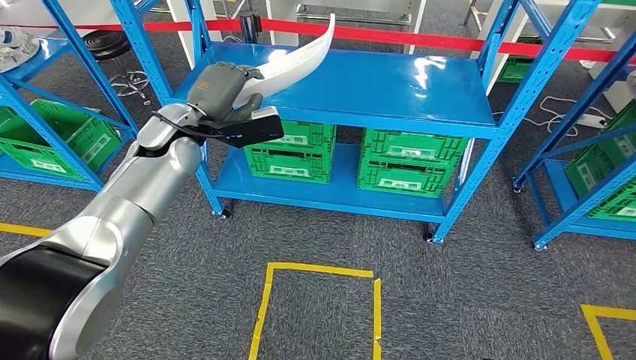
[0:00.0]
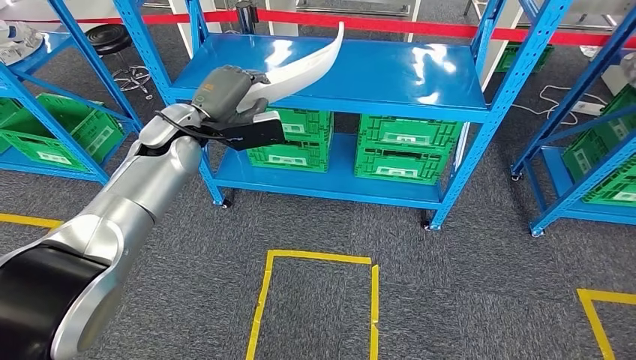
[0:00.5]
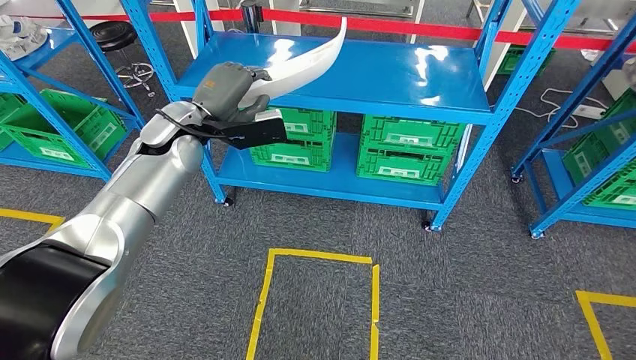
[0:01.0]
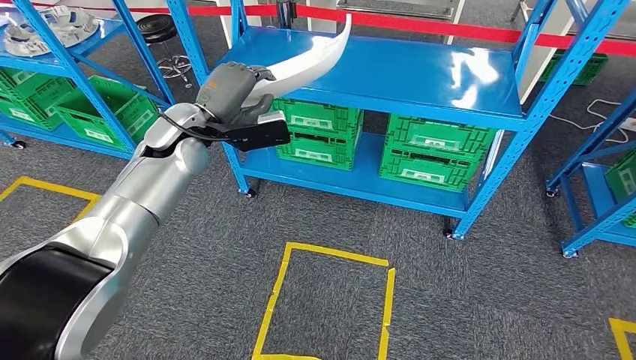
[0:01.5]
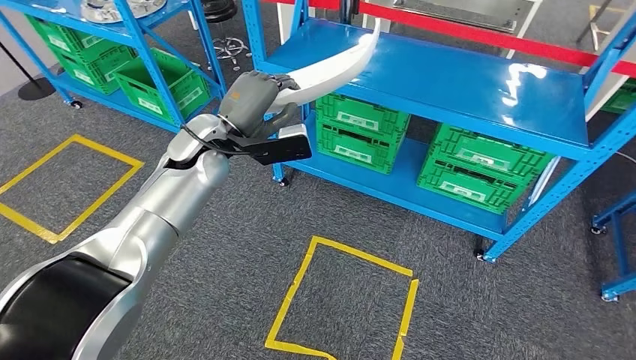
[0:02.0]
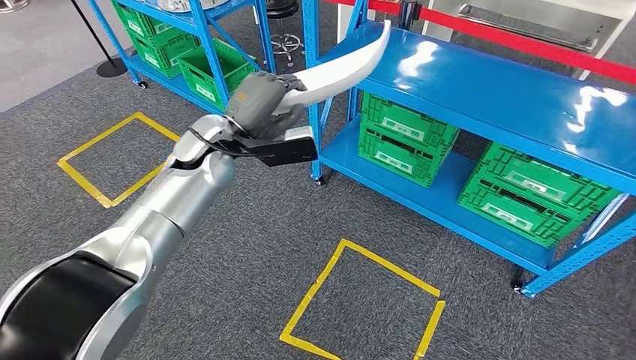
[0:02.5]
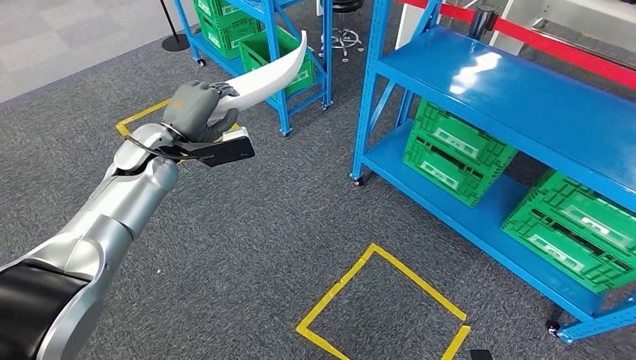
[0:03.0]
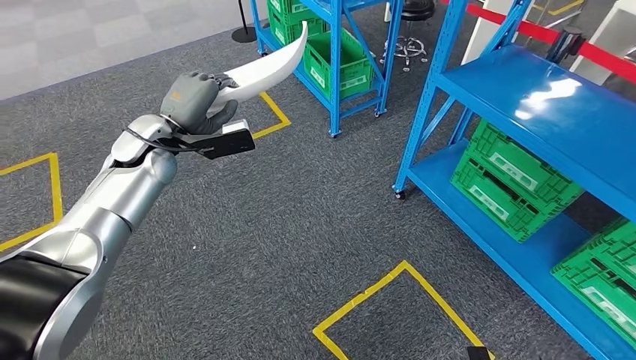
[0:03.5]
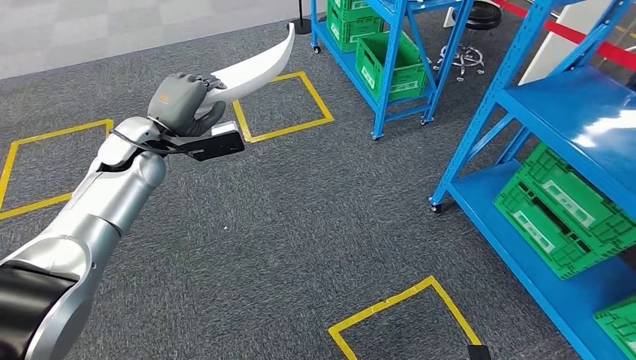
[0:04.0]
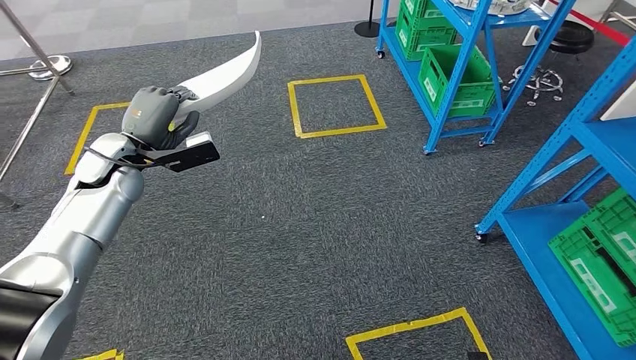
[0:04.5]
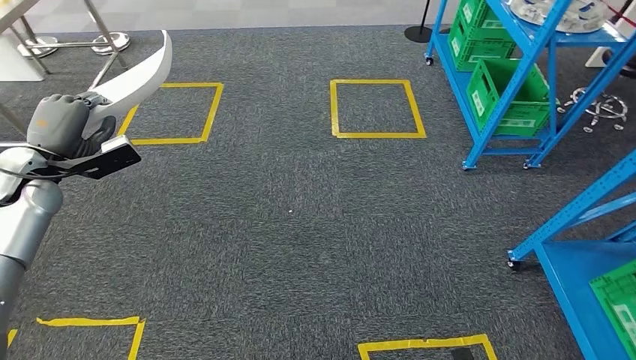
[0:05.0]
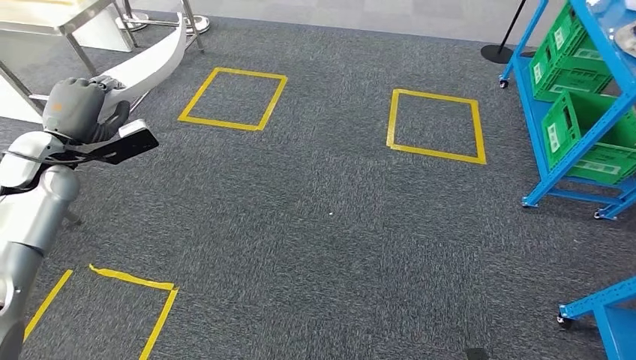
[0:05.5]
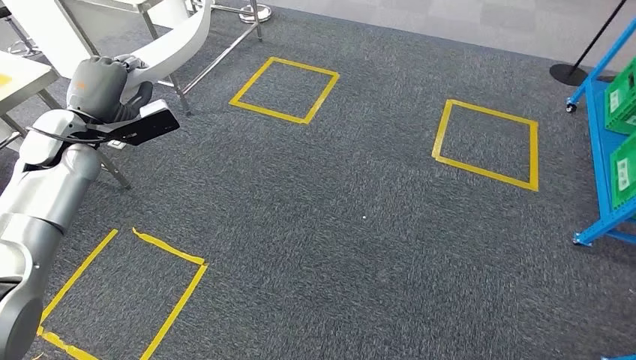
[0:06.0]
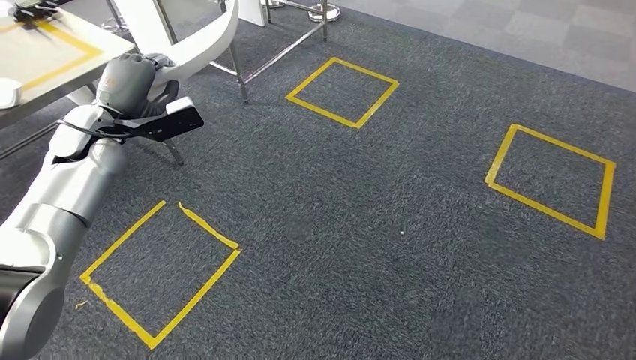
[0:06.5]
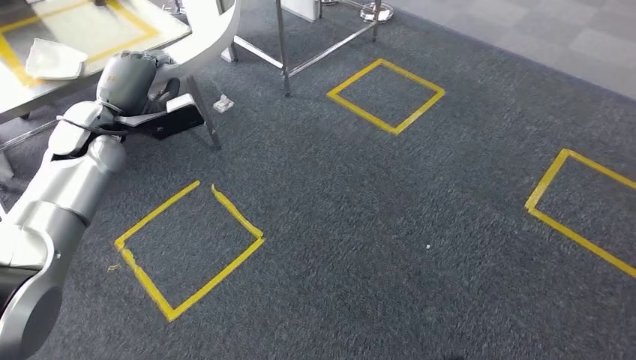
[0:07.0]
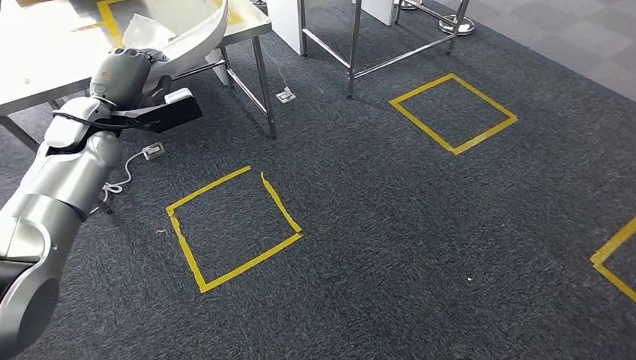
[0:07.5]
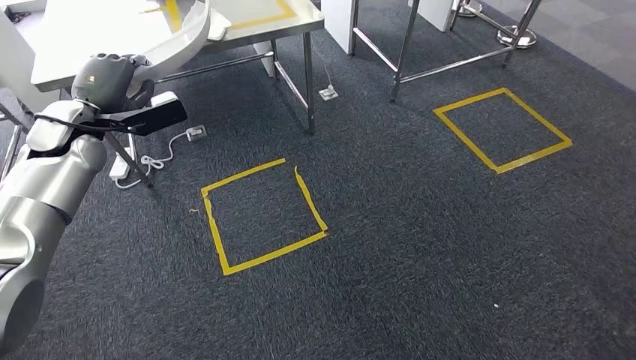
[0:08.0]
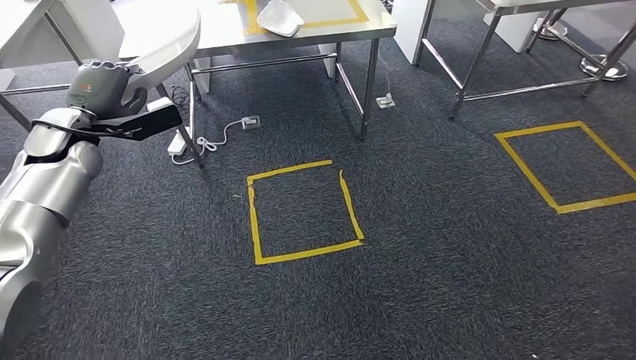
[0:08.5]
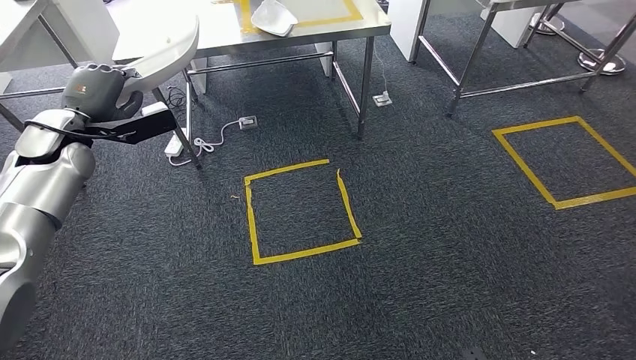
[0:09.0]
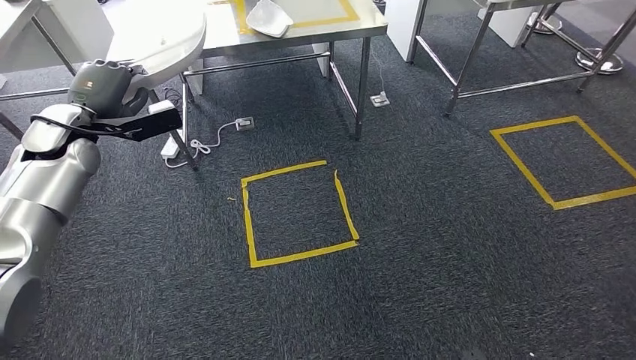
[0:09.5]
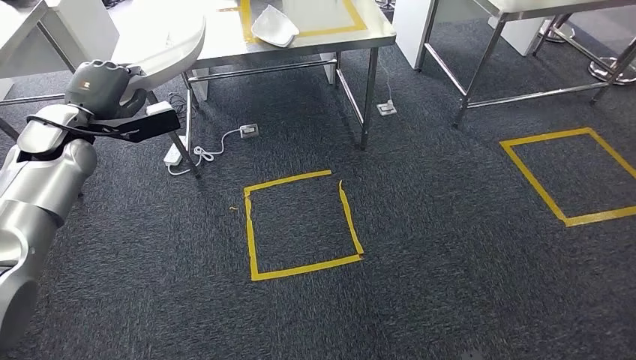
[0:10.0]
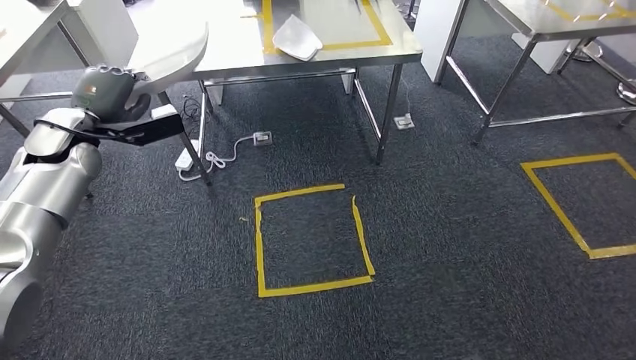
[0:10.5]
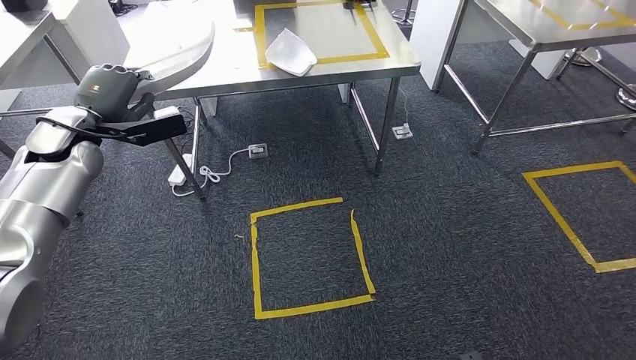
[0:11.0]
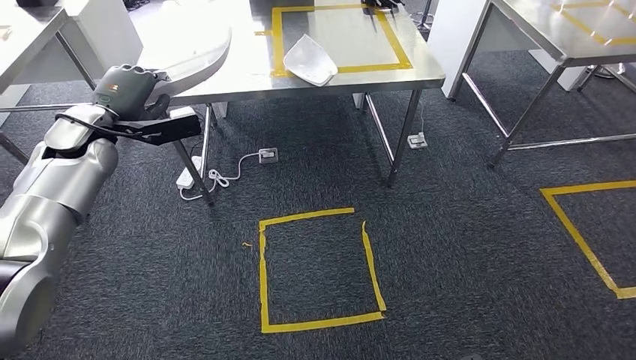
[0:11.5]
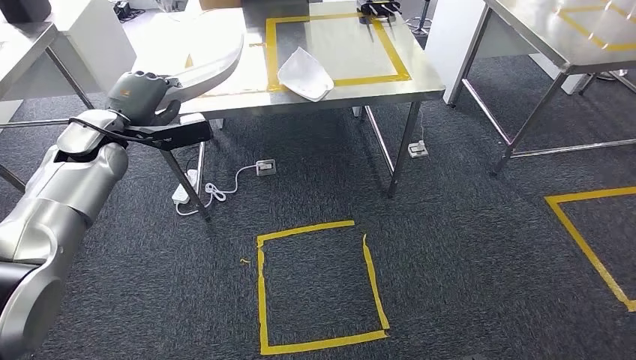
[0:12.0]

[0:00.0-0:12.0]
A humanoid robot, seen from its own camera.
Step, 0:00.0 to 0:09.5: Move the small component to the workbench.

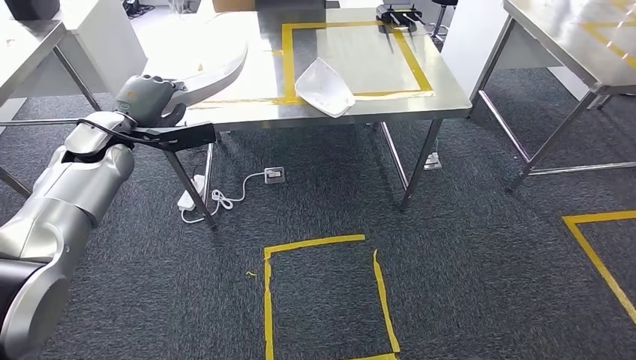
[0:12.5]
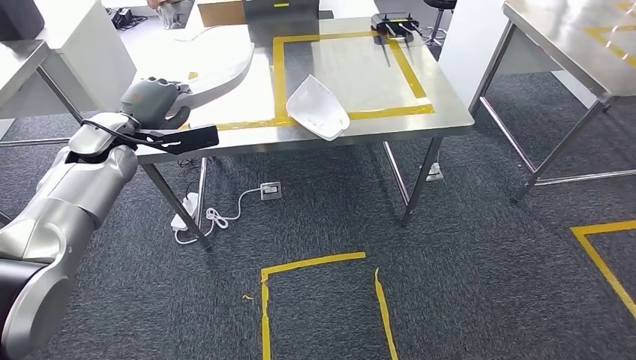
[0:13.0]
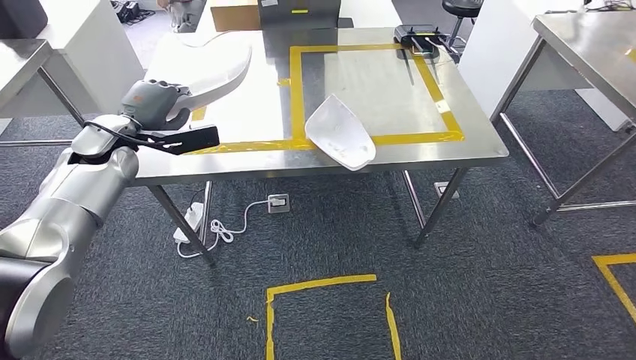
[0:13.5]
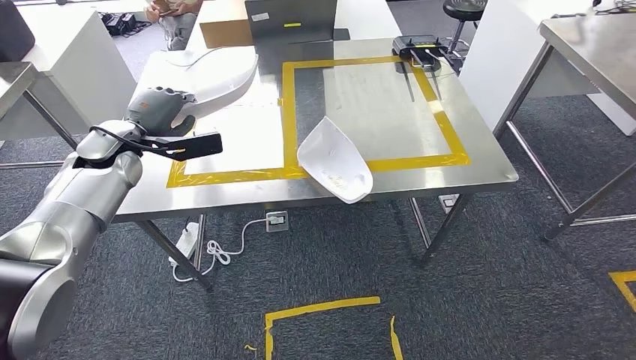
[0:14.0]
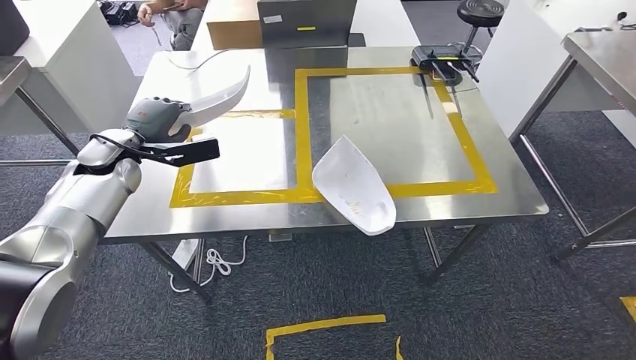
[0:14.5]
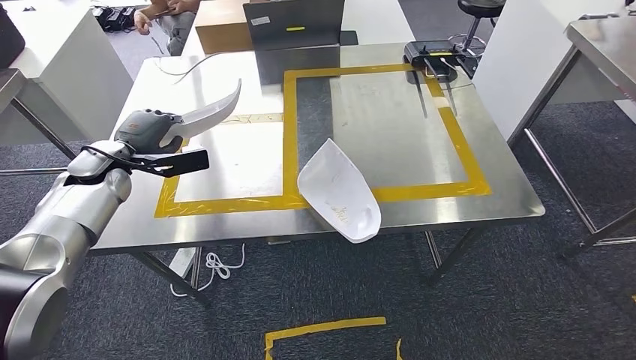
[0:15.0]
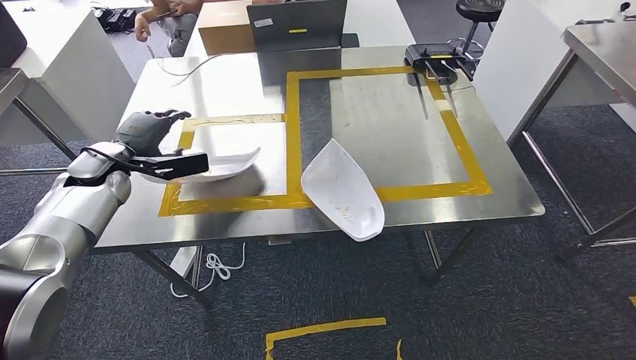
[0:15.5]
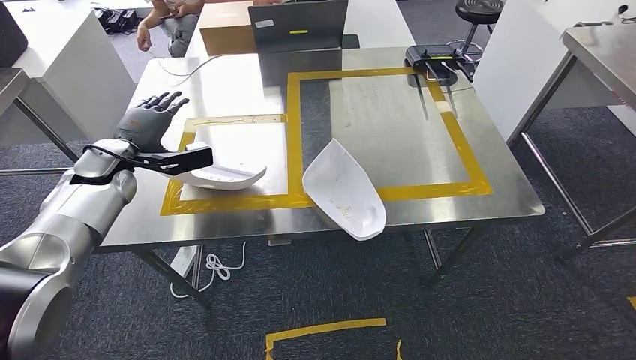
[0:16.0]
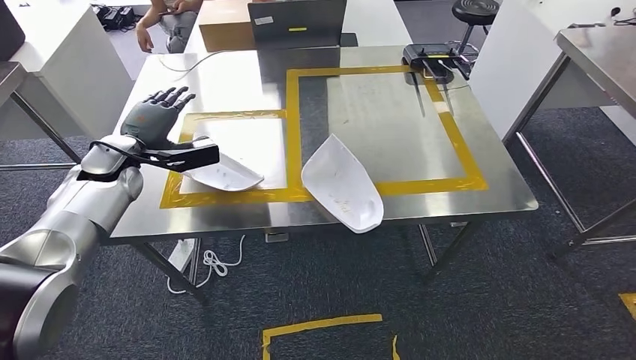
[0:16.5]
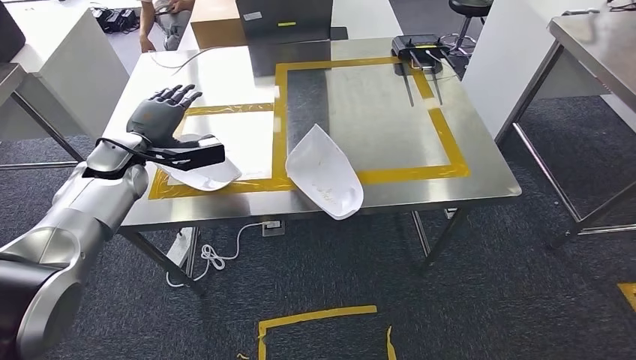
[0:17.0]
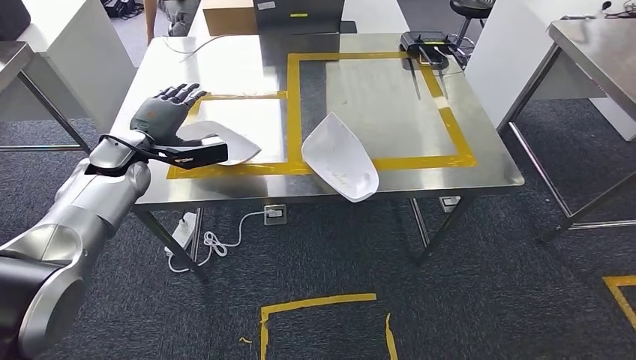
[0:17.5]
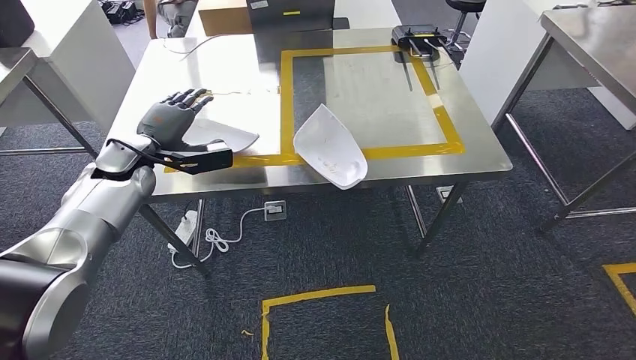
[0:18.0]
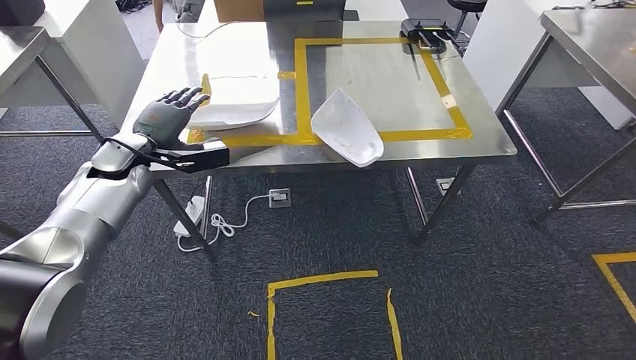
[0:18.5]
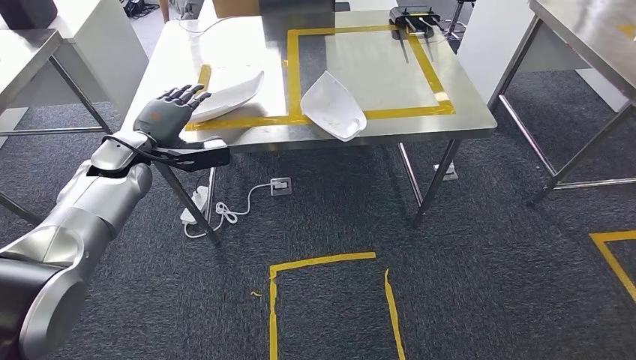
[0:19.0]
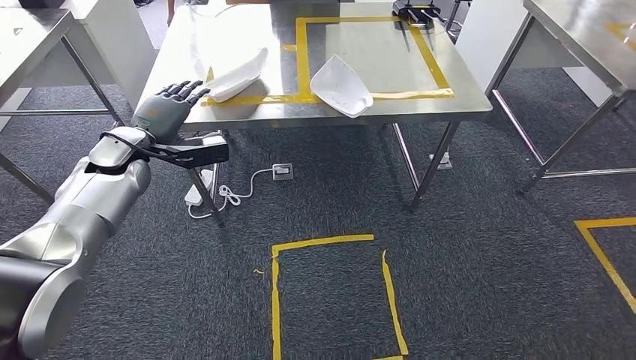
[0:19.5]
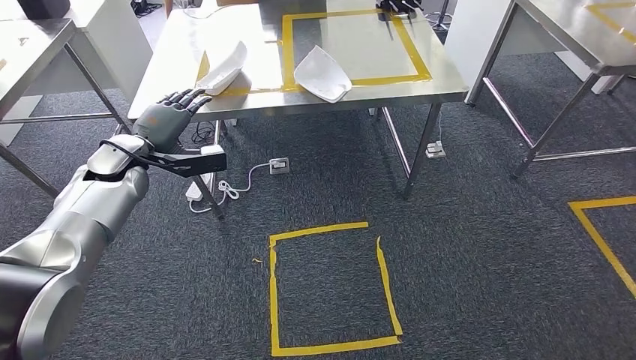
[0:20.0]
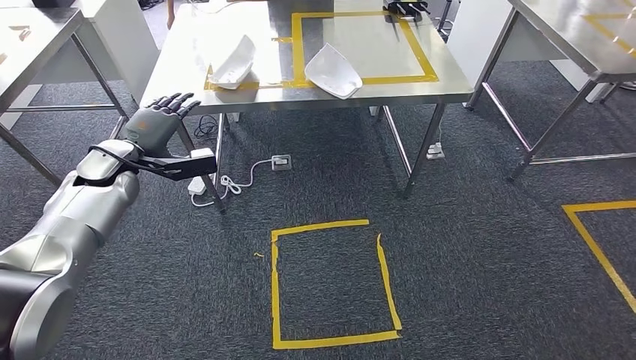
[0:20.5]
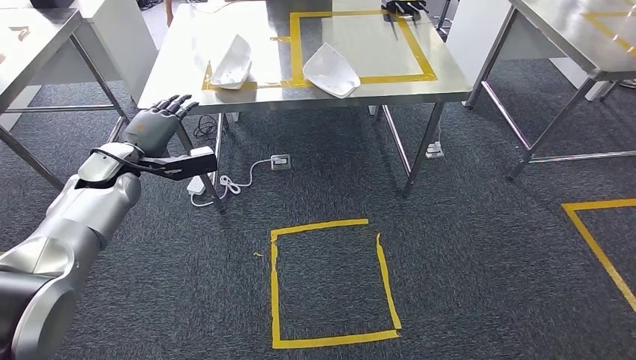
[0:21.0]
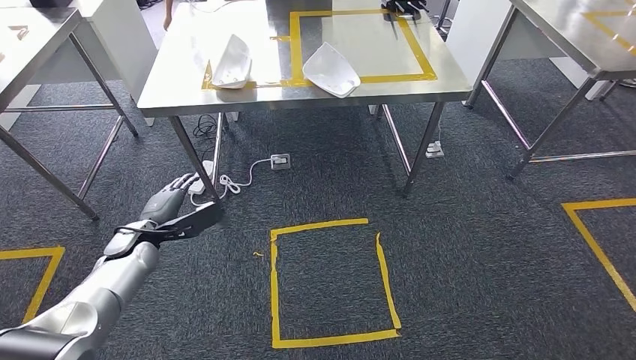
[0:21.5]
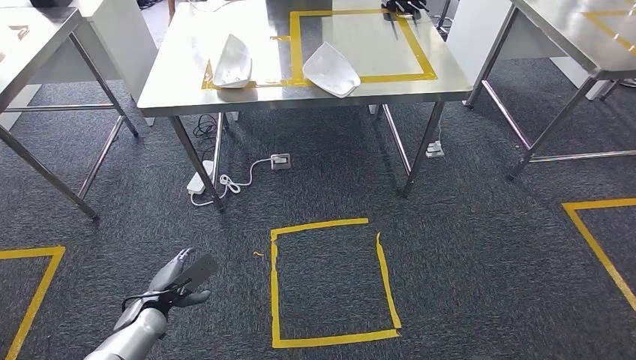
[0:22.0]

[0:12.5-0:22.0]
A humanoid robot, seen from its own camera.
Step, 0:12.5 to 0:18.0: Insert the small component into the corresponding slot on the workbench.
Step, 0:19.0 to 0:22.0: Move to the initial position at the workbench.
